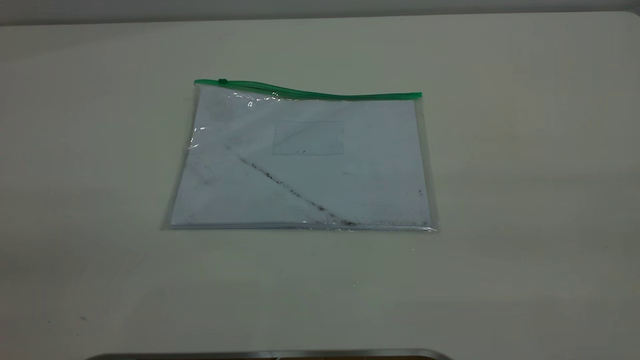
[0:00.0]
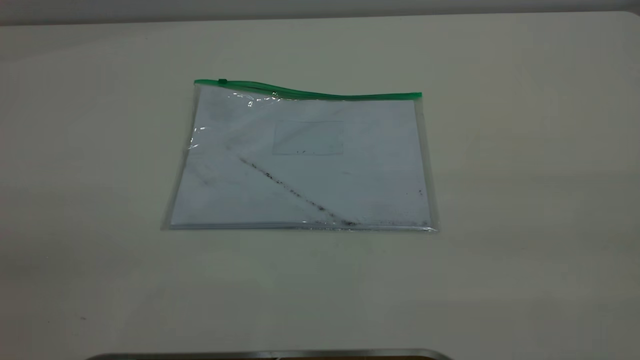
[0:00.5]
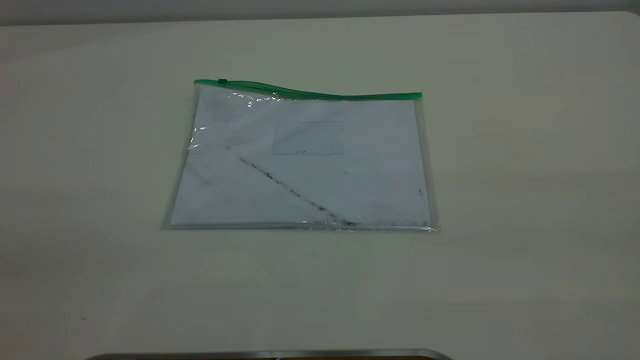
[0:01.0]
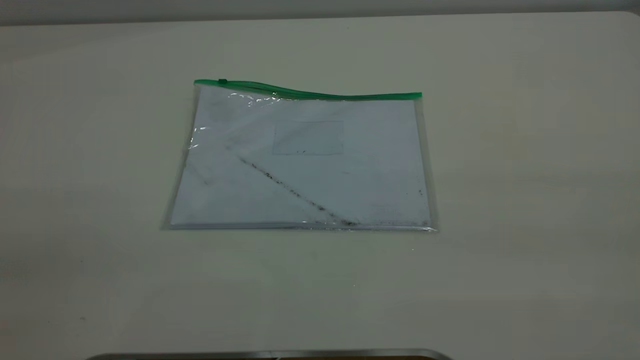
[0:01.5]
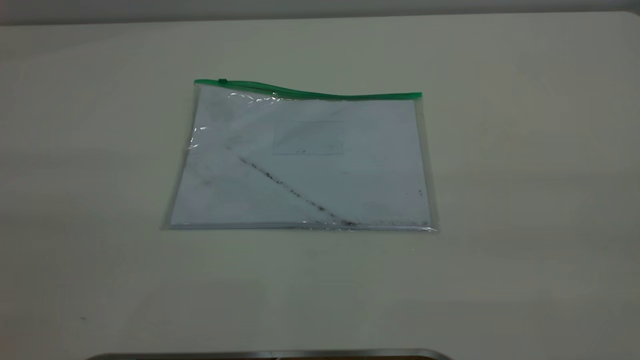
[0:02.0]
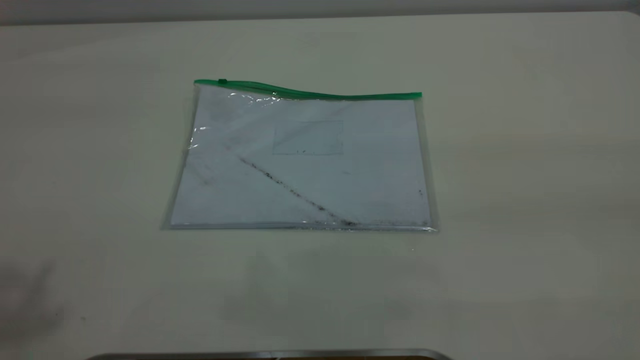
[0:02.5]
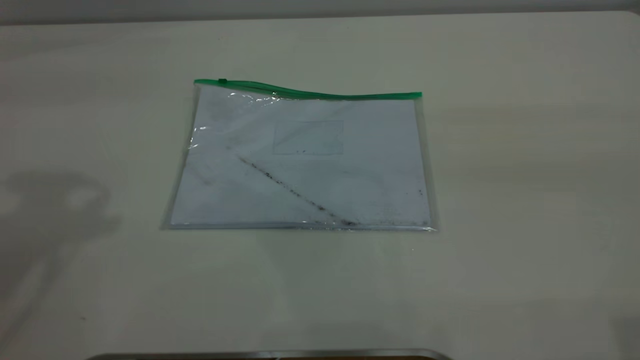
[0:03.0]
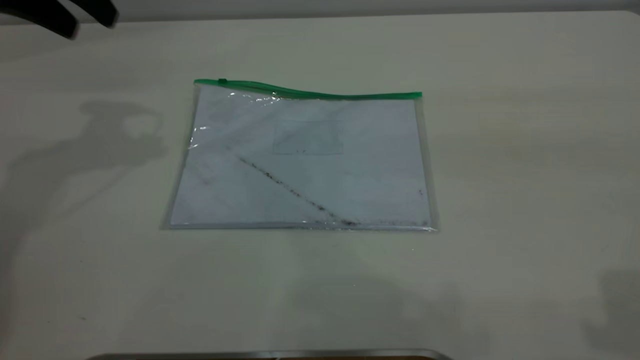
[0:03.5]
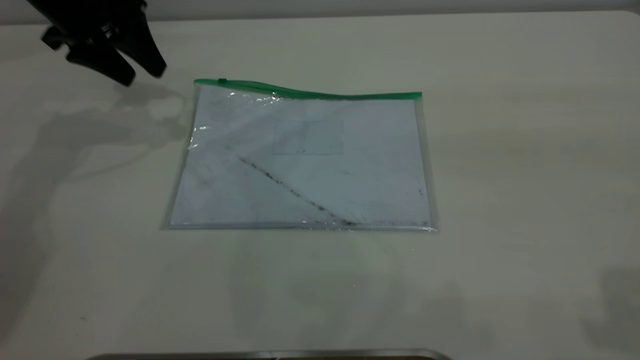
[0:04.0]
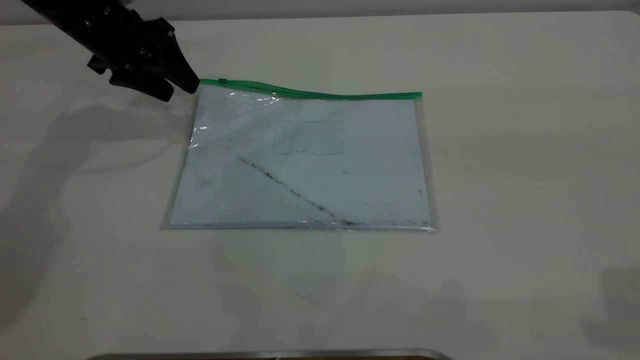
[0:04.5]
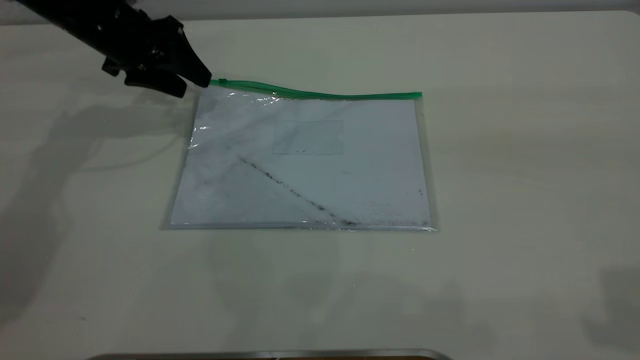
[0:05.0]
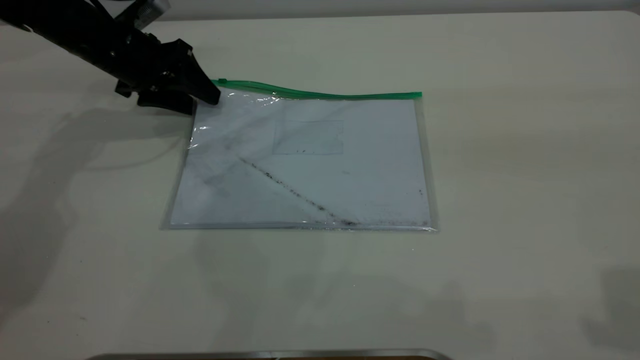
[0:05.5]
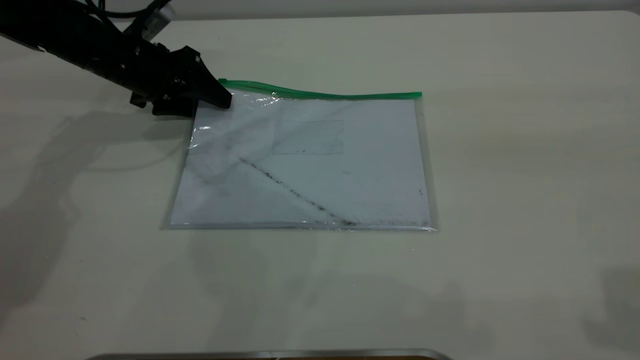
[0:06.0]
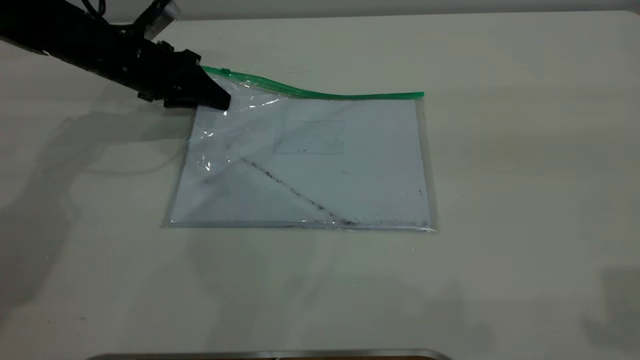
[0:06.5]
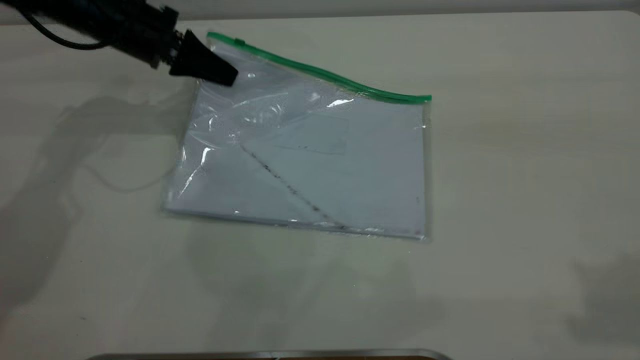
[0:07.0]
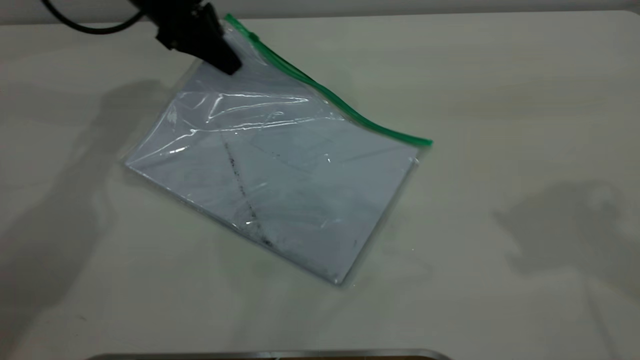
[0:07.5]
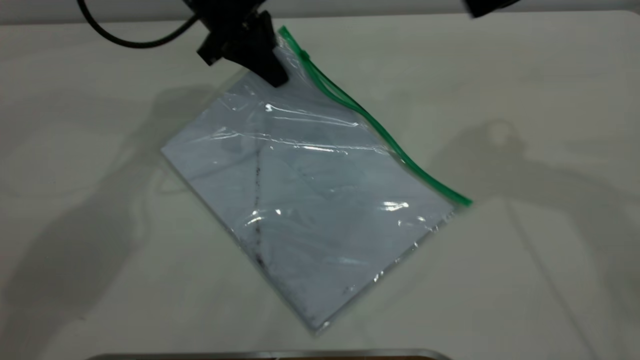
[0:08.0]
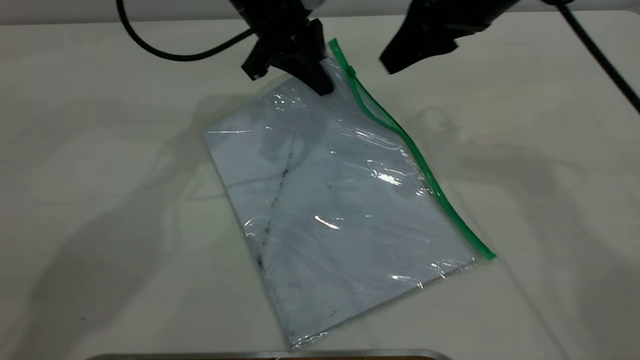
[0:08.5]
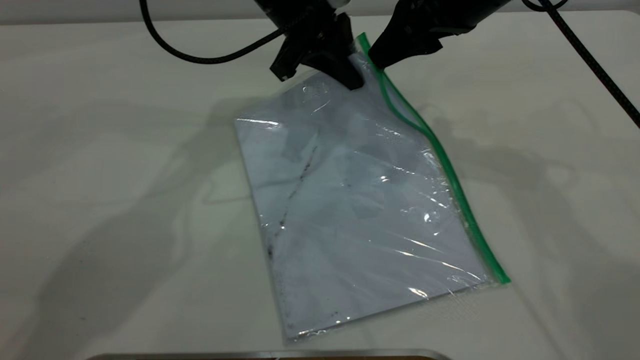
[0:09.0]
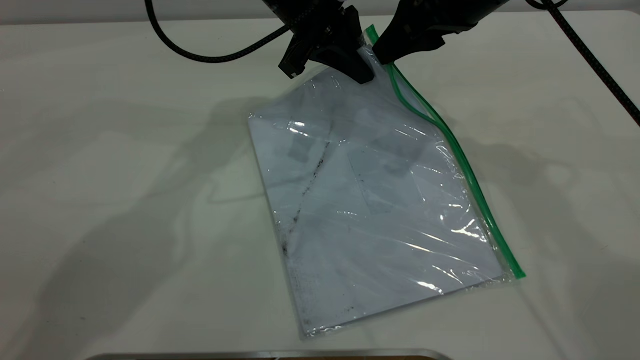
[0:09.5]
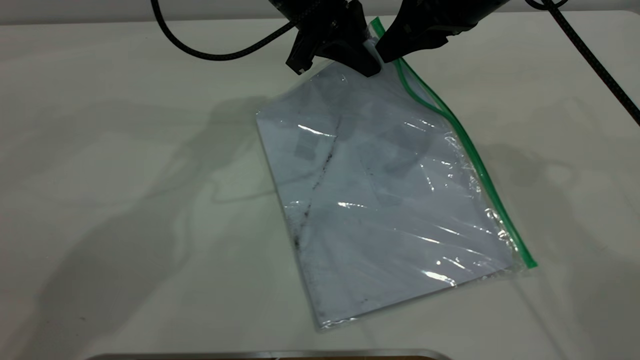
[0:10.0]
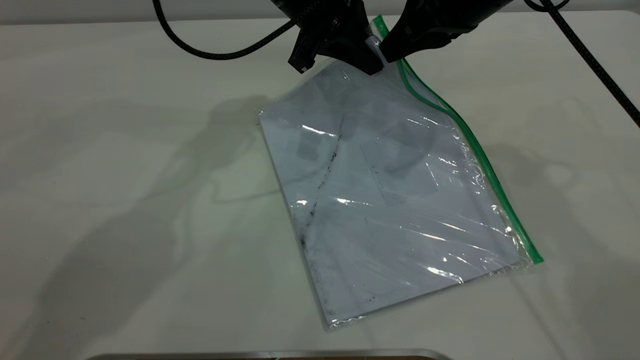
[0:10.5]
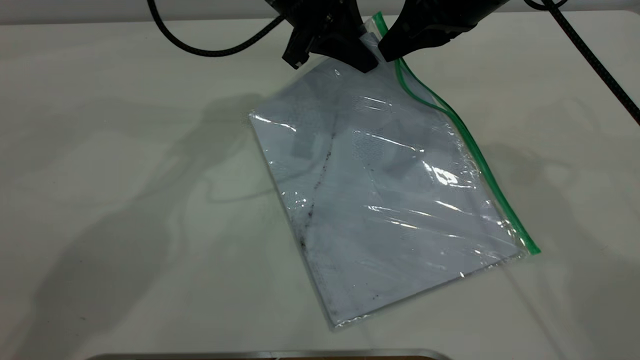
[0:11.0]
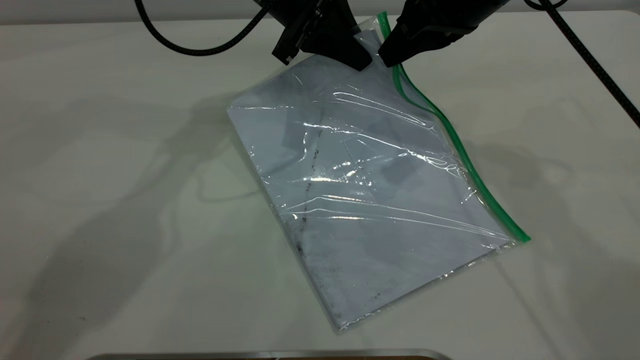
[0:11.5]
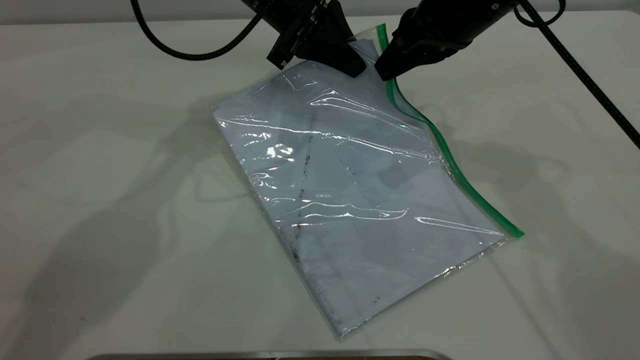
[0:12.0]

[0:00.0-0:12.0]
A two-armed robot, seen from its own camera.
Step, 0:00.0 to 0:07.0: Pick up the transparent plastic bag with the left gripper.
0:02.0 to 0:04.0: The left gripper goes some 50 cm forward and downward.
0:04.0 to 0:06.0: The left gripper shifts some 10 cm downward.
0:06.0 to 0:08.0: The right gripper moves forward and to the left, approximately 25 cm. Meanwhile the left gripper shifts about 15 cm to the right and upward, and closes its fingers.
0:08.0 to 0:10.0: The left gripper is displaced to the right by roughly 10 cm, while the right gripper moves downward and to the left, approximately 10 cm, and closes up.
0:10.0 to 0:12.0: The right gripper closes.

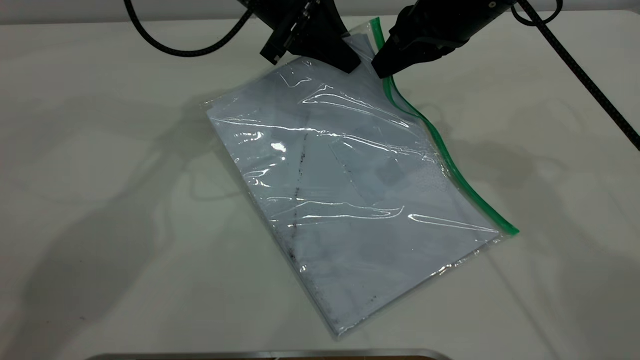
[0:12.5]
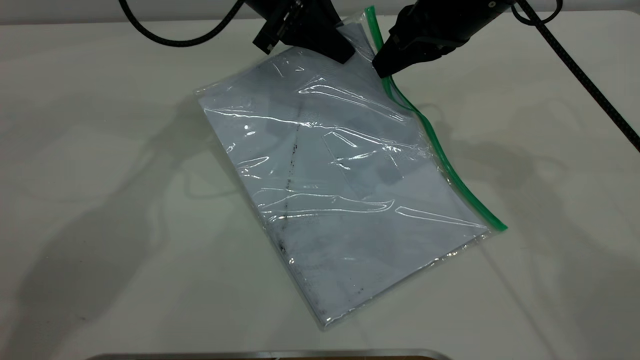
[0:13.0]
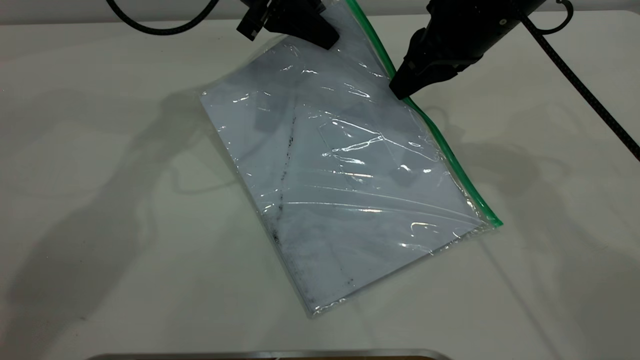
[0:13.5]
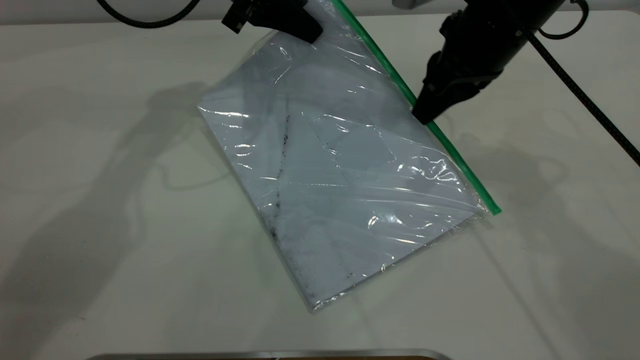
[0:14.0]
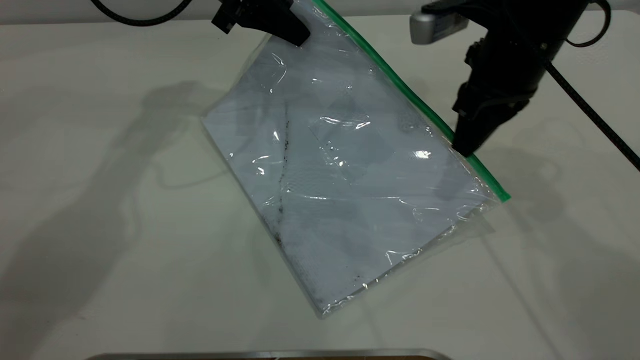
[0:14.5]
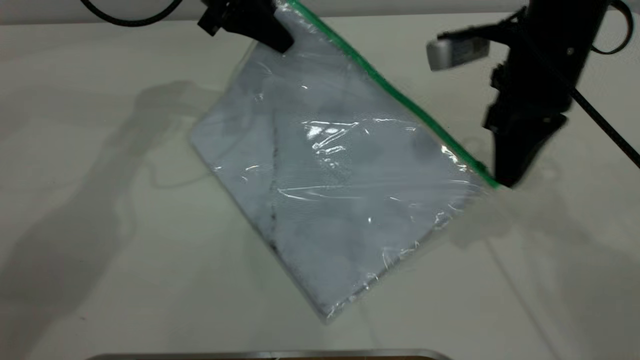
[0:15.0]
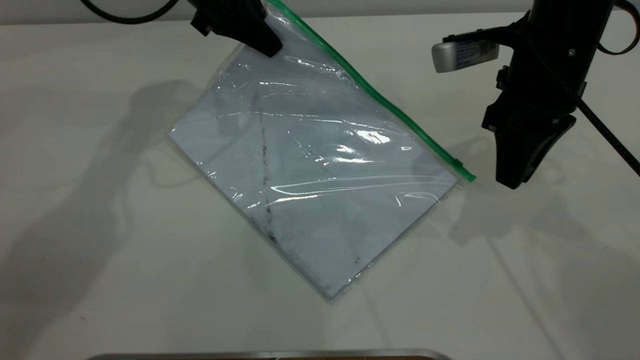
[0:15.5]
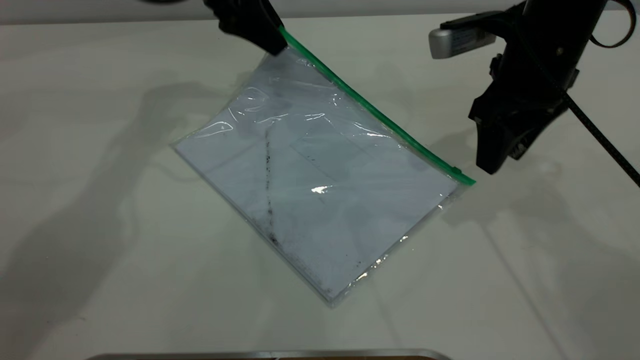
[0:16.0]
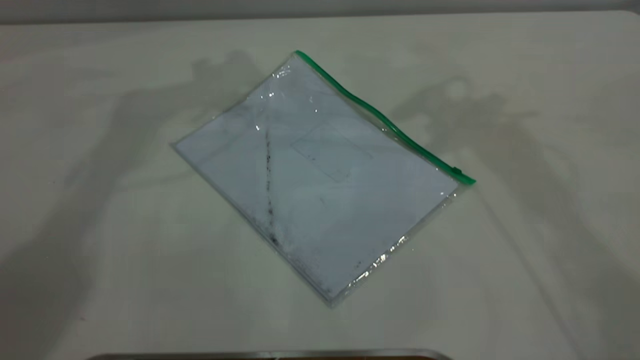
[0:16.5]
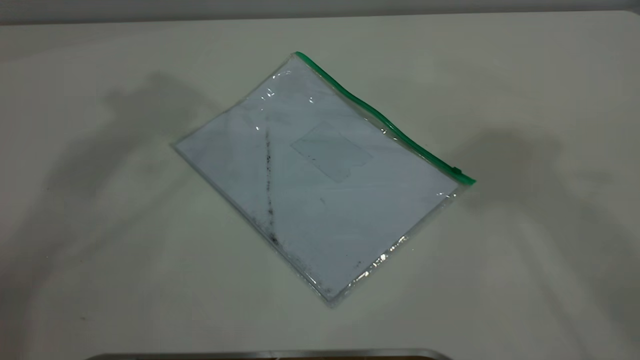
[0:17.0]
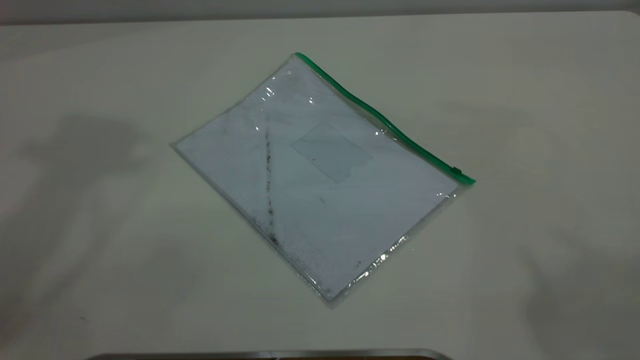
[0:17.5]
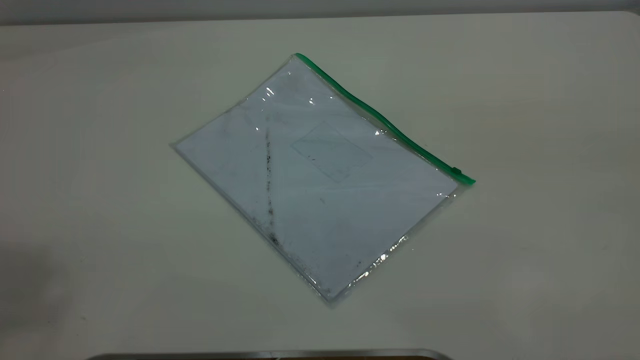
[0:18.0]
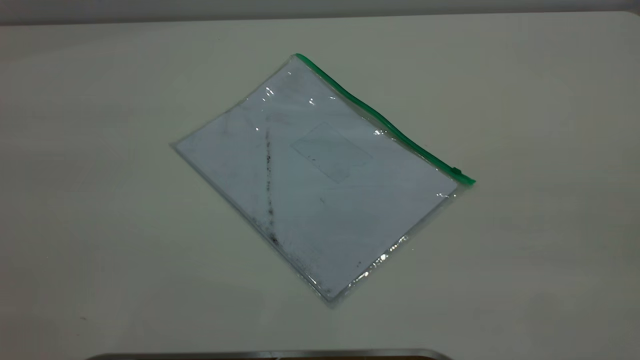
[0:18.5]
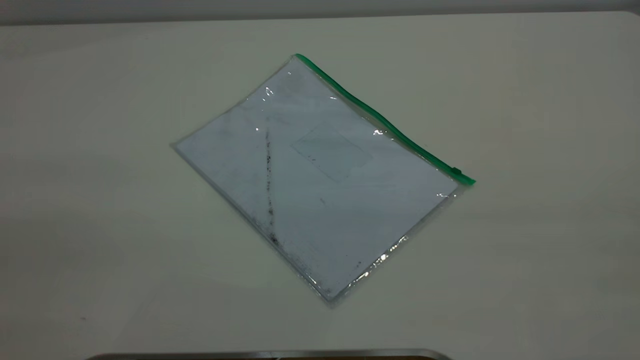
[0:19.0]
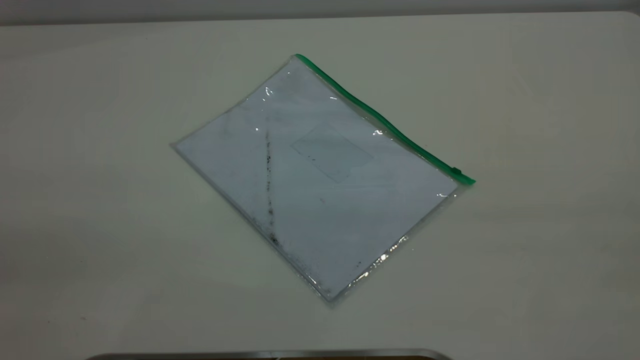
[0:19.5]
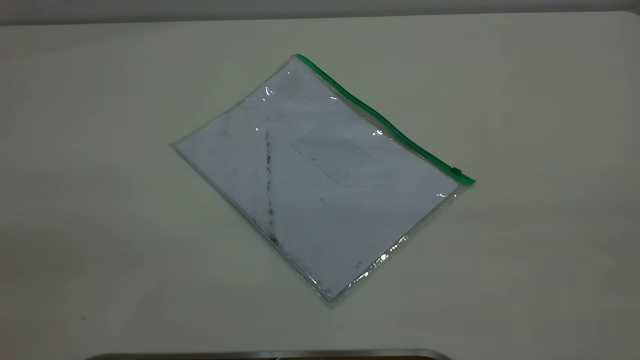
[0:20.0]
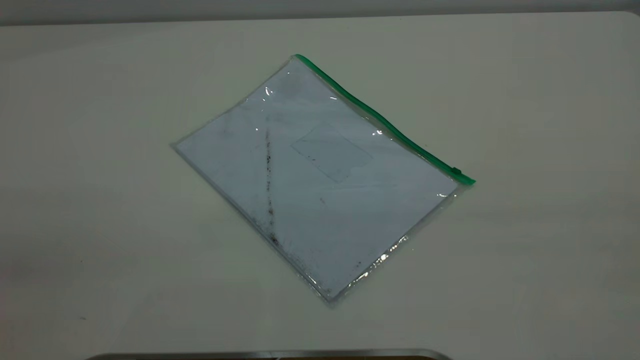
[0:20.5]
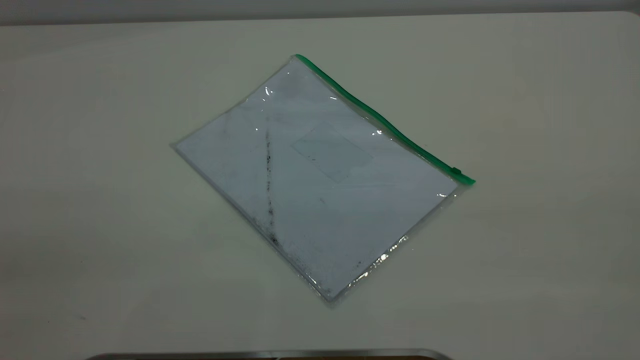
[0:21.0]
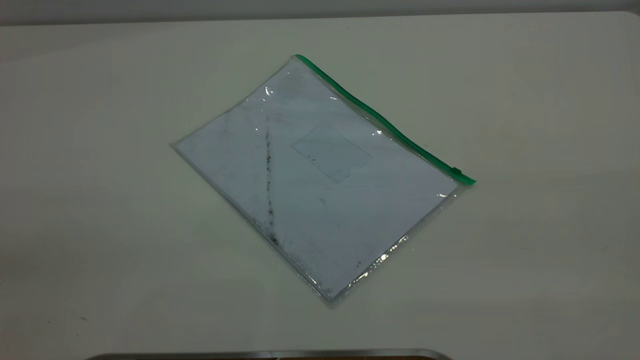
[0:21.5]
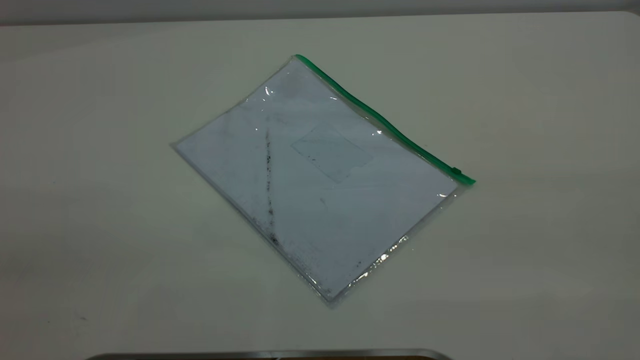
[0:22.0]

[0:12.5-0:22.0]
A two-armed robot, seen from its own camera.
Step, 0:12.5 to 0:14.5: Pulling up the zipper on the transparent plastic bag with the right gripper to close it.
Step, 0:15.5 to 0:16.0: Place the transparent plastic bag.
0:12.5 to 0:14.5: The left gripper moves to the left, some 5 cm.
0:14.5 to 0:16.5: Both grippers move upward, about 20 cm. The left gripper opens up; the right gripper opens its fingers.
